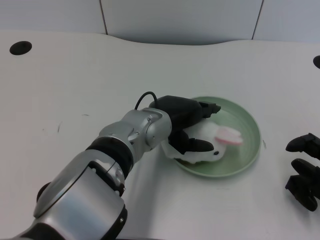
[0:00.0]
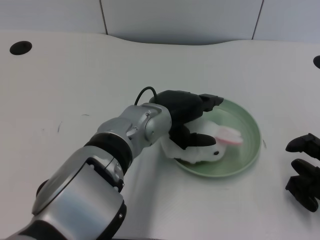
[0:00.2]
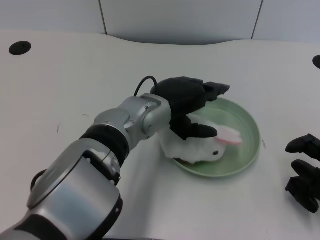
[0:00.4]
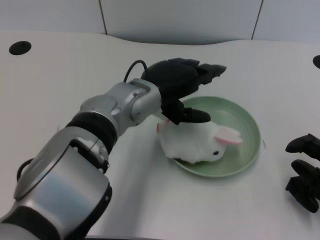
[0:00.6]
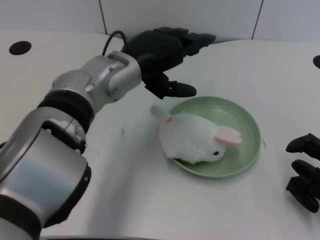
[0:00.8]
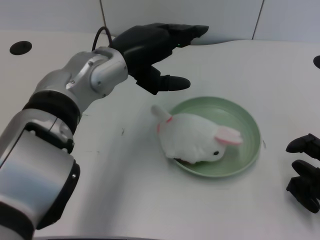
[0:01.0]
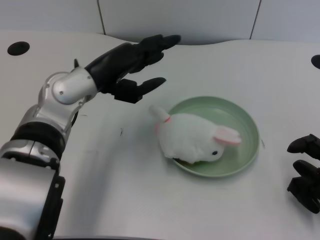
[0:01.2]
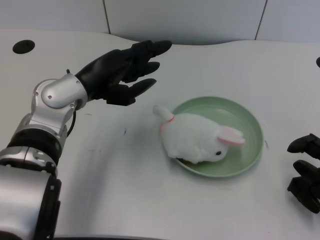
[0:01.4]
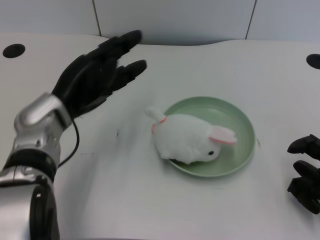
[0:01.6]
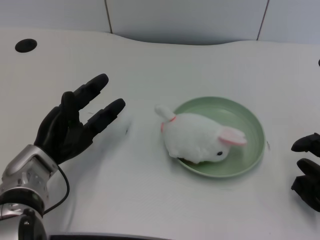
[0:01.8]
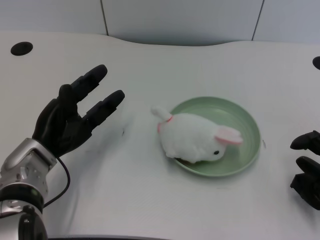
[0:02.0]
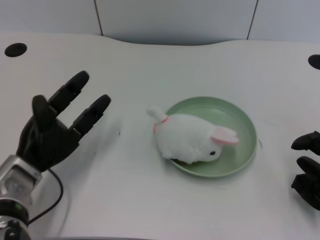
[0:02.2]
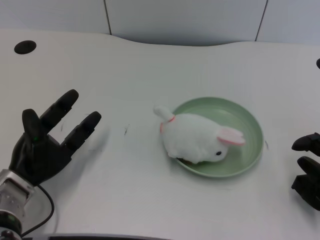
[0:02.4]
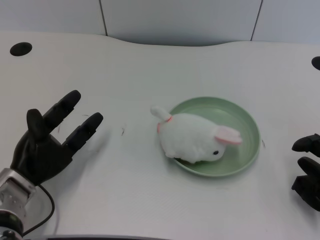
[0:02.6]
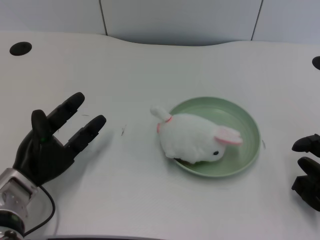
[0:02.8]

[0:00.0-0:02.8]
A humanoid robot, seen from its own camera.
Task of the whole recording: pick up the rabbit doll from the table and place it on the plate.
0:00.0 to 0:01.4: The left hand moves to the left, about 10 cm.
0:01.4 to 0:02.8: The left hand is displaced downward, to the left and backward by some 15 cm.

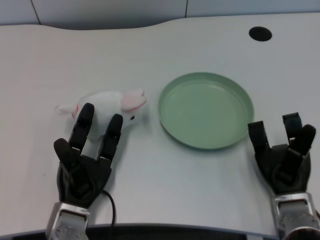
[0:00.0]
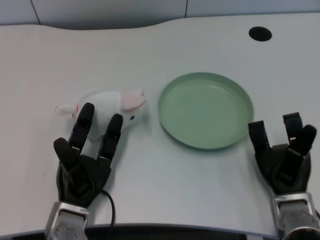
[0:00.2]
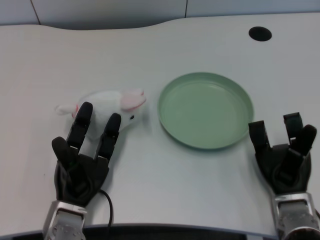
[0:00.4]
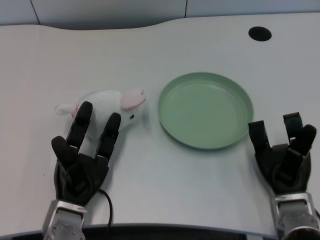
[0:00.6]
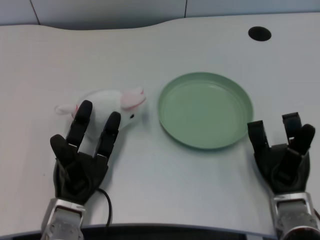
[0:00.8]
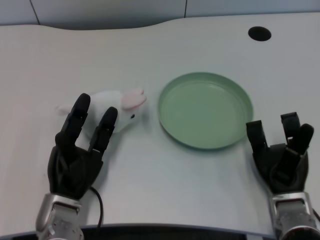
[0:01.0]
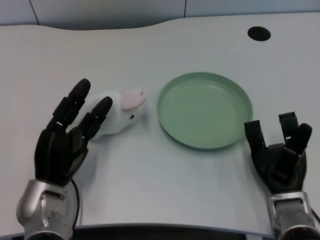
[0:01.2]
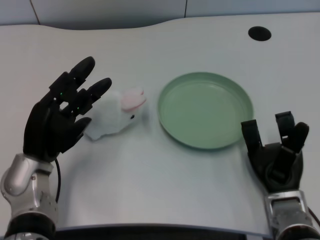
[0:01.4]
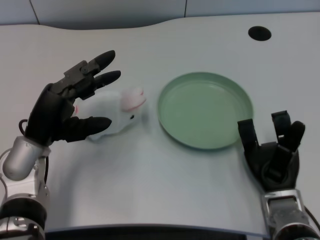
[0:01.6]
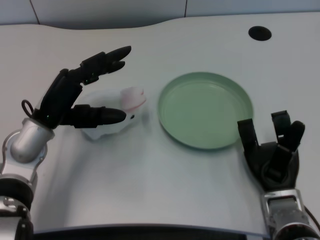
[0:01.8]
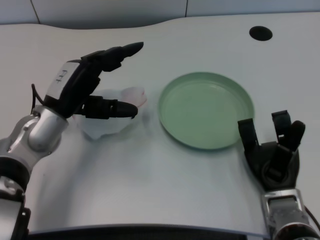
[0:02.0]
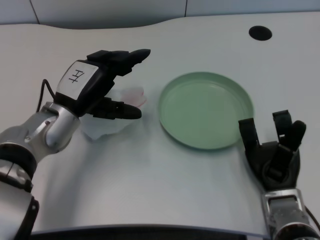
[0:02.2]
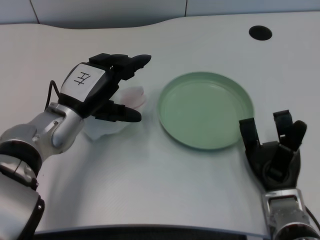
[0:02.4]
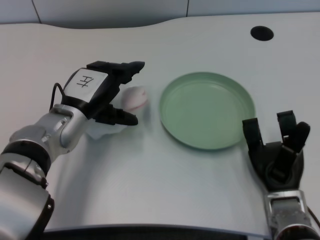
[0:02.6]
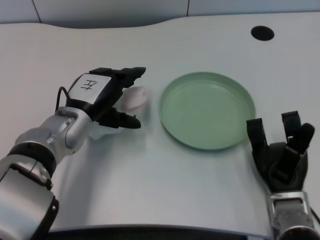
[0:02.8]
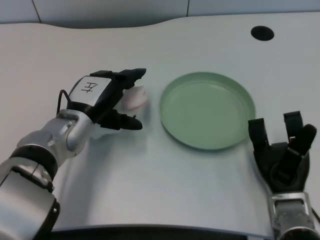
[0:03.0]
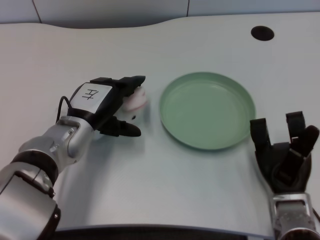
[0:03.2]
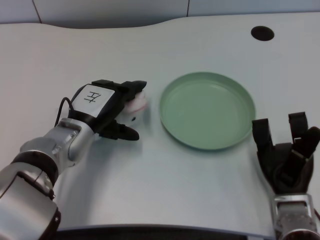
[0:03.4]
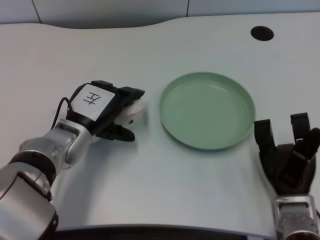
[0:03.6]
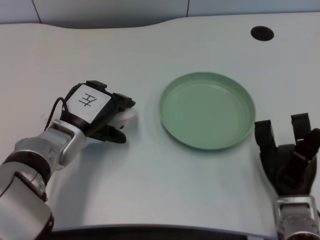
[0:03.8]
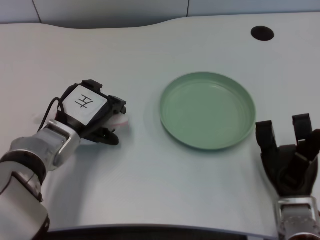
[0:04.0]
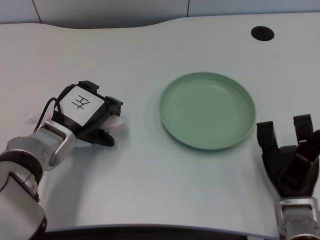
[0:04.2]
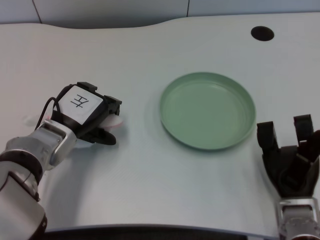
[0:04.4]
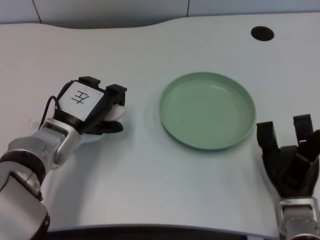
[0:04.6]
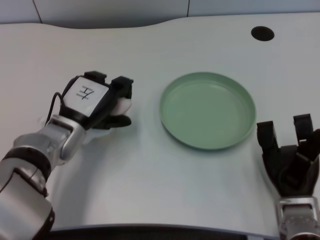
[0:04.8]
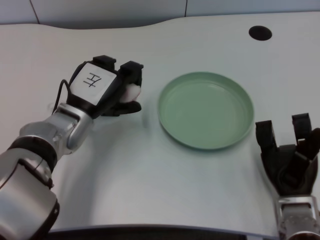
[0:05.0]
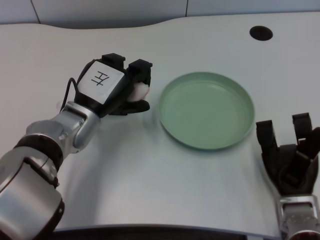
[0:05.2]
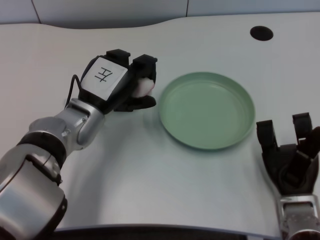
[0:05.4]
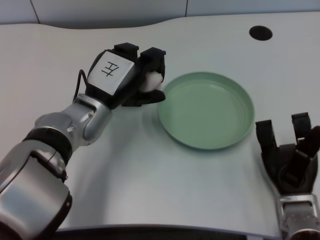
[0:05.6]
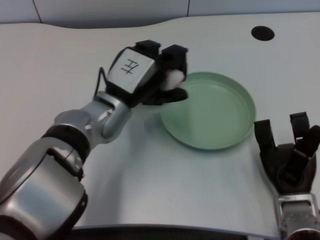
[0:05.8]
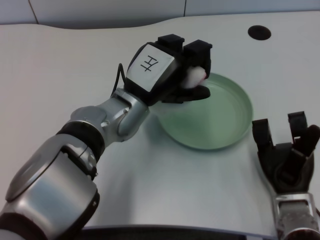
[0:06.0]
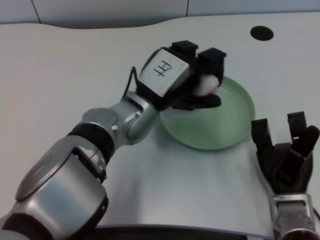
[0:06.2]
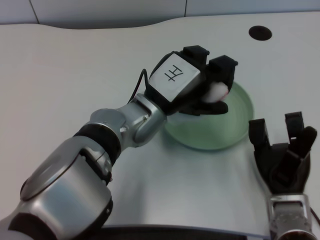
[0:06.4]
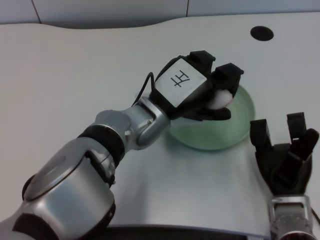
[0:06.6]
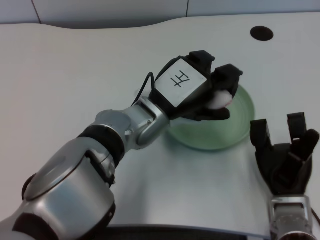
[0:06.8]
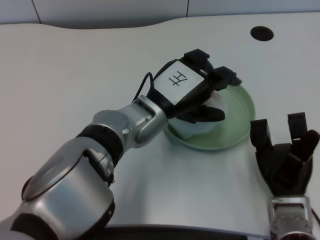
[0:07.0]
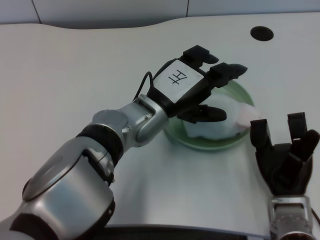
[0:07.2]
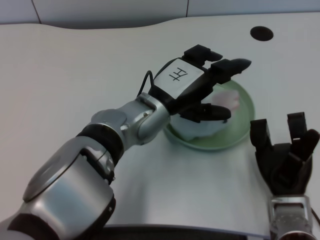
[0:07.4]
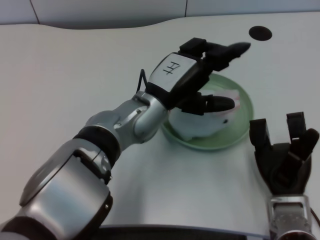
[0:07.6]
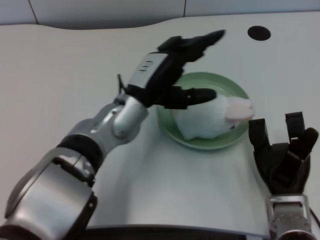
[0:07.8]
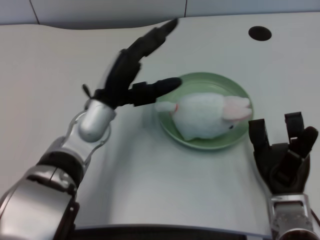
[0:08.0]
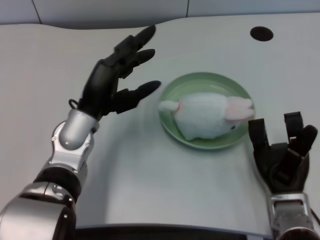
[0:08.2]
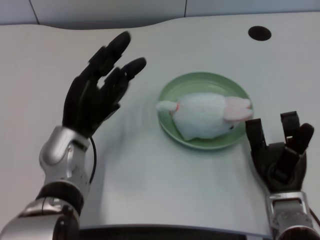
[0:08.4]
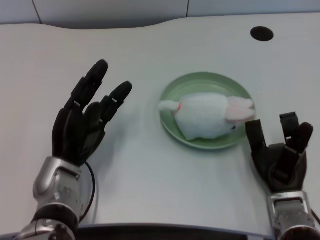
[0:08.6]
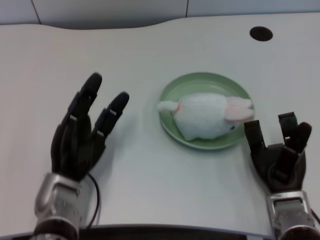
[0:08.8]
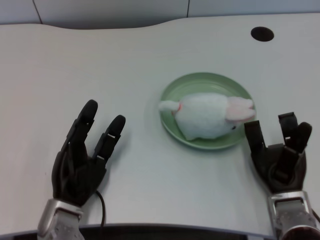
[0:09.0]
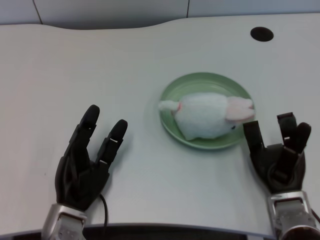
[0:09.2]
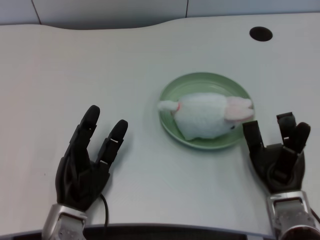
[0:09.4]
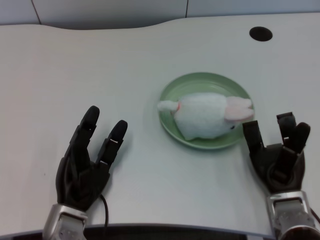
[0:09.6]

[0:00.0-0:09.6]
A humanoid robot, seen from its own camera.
Task of the whole recording: pick up the rabbit doll from the table and place it on the plate.
Step, 0:01.0 to 0:04.8: Grasp the rabbit doll with the left gripper.
Step, 0:05.0 to 0:07.4: Place the rabbit doll into the plate with the left gripper.
0:01.6 to 0:03.2: The left hand goes approximately 5 cm to the right.
0:04.8 to 0:06.4: The left hand goes roughly 10 cm to the right.
0:06.4 to 0:08.0: The left hand travels to the left by approximately 5 cm.
0:08.0 to 0:09.6: The left hand shifts some 15 cm downward, backward and to the left.

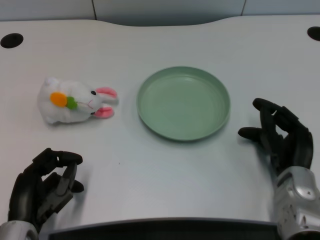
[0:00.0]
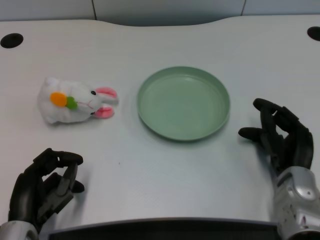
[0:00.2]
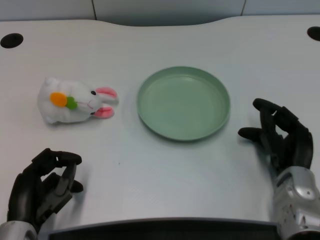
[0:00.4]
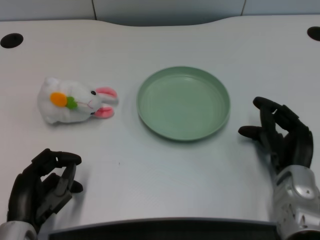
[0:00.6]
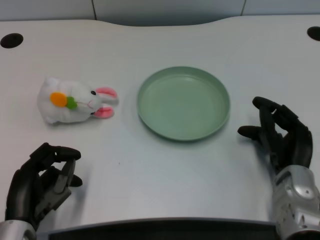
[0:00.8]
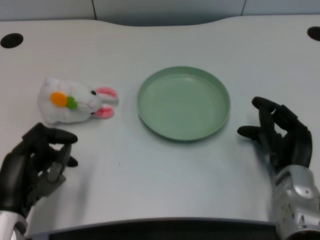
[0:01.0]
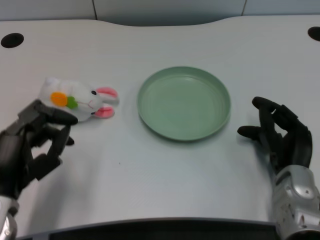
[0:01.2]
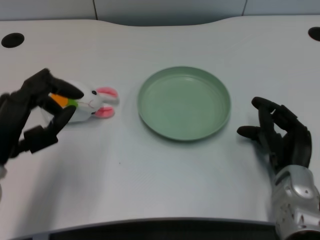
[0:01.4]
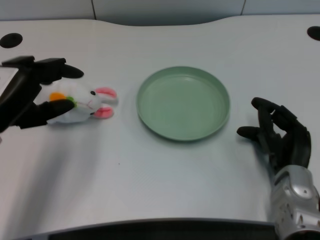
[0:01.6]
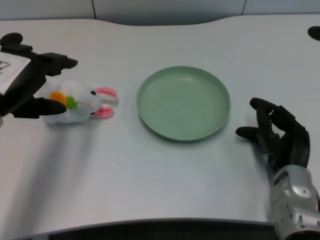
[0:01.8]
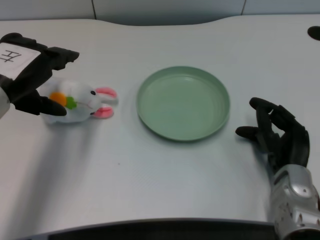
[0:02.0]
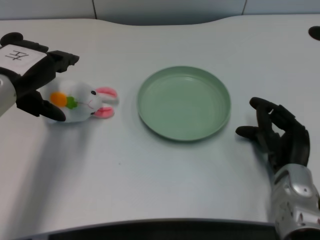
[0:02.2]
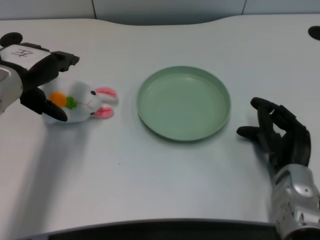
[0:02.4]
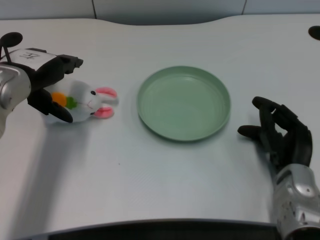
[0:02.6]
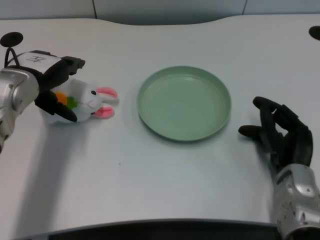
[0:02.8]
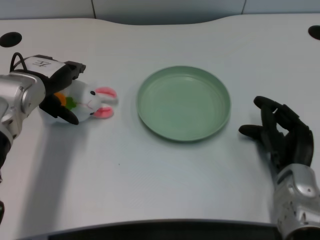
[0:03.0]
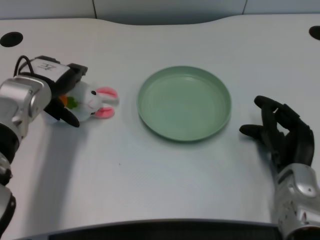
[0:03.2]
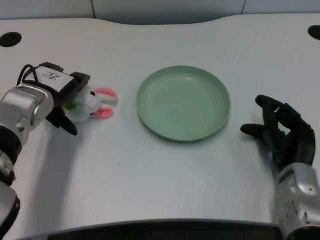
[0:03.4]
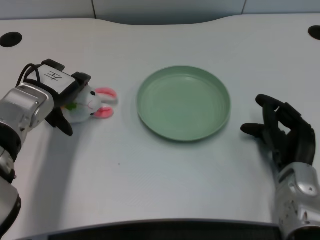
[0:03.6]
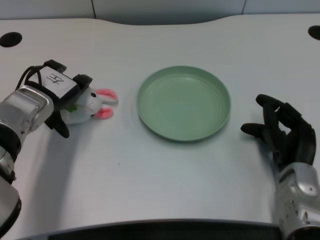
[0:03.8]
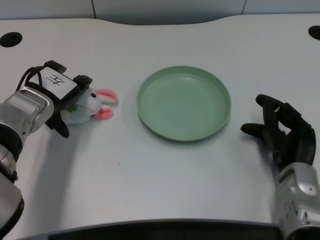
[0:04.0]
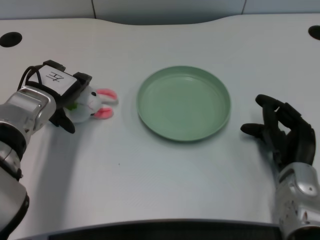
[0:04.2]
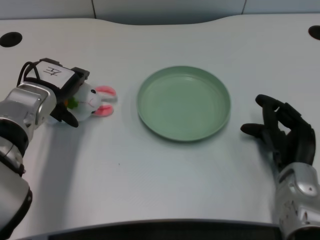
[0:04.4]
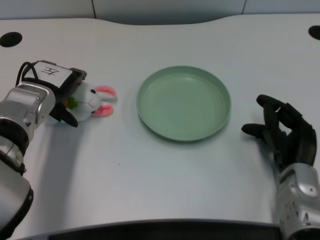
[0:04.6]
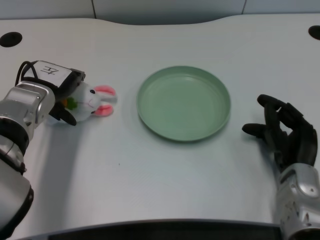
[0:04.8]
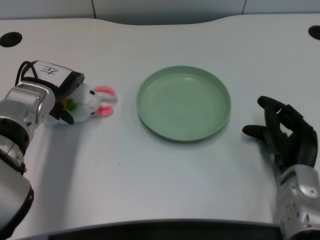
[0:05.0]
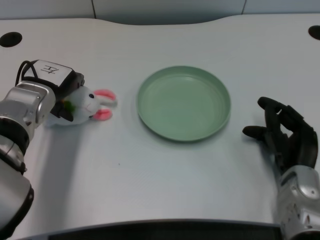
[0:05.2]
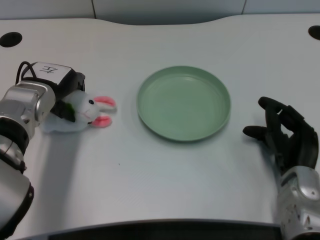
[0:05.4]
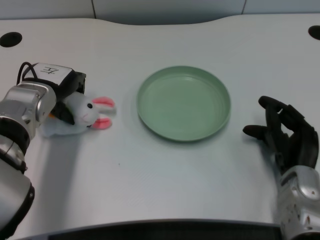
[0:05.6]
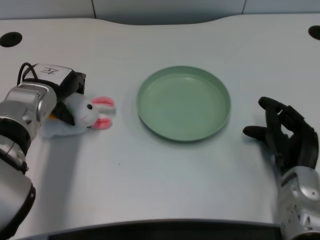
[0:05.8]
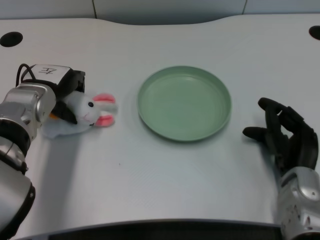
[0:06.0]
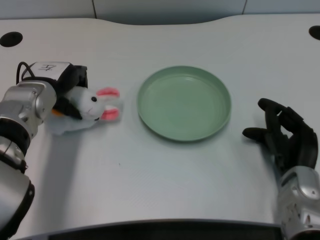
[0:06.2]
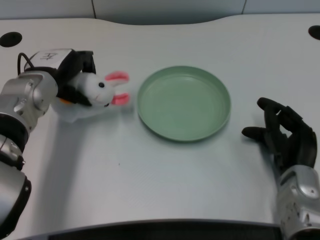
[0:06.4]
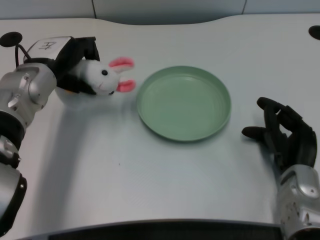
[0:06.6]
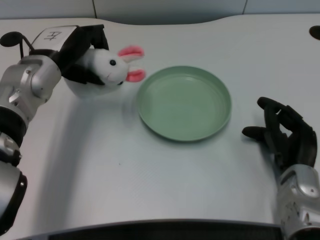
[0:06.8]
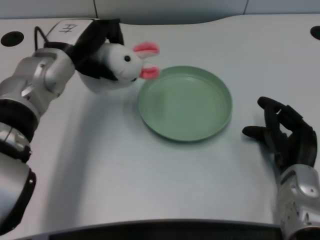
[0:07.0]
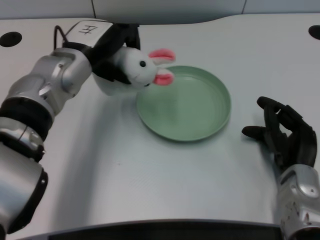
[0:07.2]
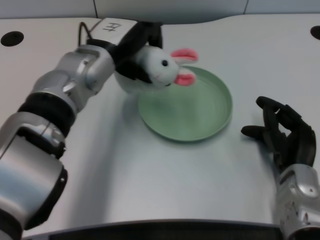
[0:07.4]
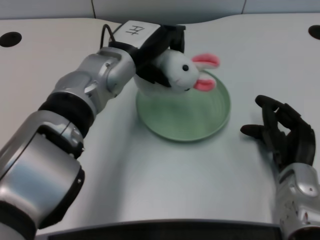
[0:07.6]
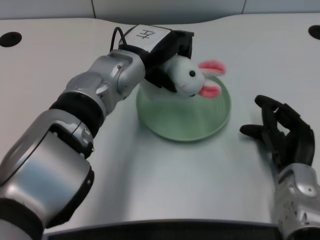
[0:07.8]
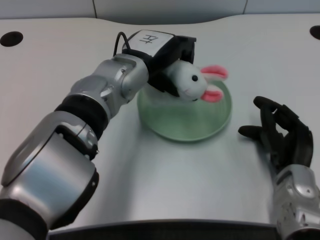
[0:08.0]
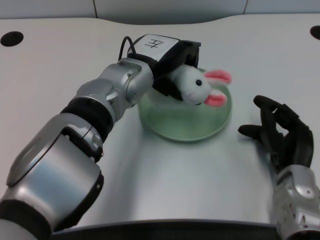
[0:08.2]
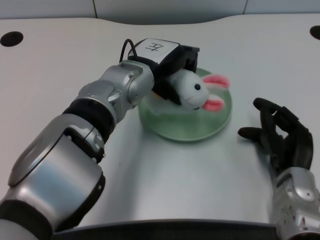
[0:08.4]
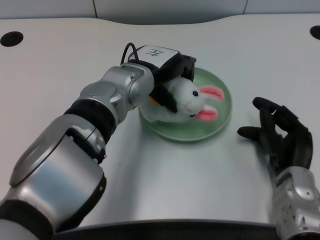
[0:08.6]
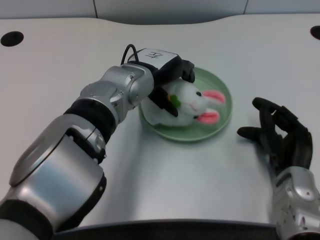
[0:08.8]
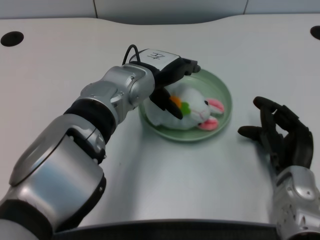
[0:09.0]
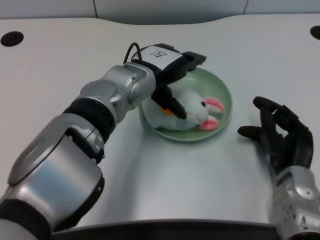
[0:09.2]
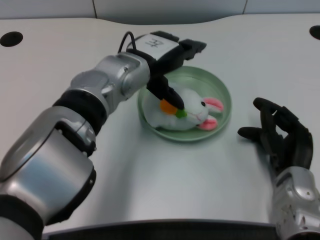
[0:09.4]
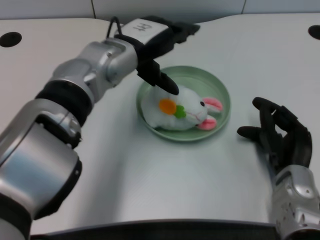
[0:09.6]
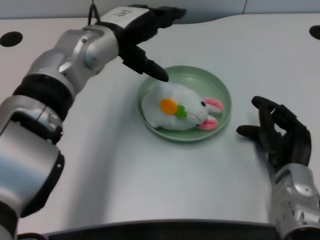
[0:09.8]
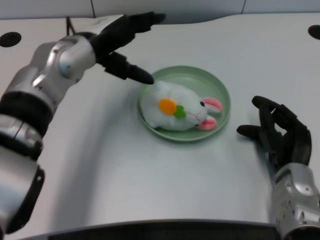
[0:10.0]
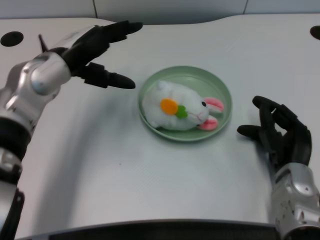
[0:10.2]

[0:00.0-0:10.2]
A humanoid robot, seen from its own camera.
Task of the whole recording: pick up the rabbit doll from the table and place it on the plate.
Step, 0:01.0 to 0:06.2: Grasp the rabbit doll with the left gripper.
Step, 0:06.4 to 0:09.2: Place the rabbit doll into the plate with the left gripper.
0:01.4 to 0:03.0: The left hand heads forward, covering roughly 15 cm.
0:04.4 to 0:05.8: The hands stay close to where they were, moving slightly.
0:05.8 to 0:07.2: The left hand travels to the right by approximately 5 cm.
0:07.2 to 0:08.8: The left hand travels to the right by roughly 10 cm.
0:08.8 to 0:10.2: The left hand is displaced to the left by about 10 cm.
